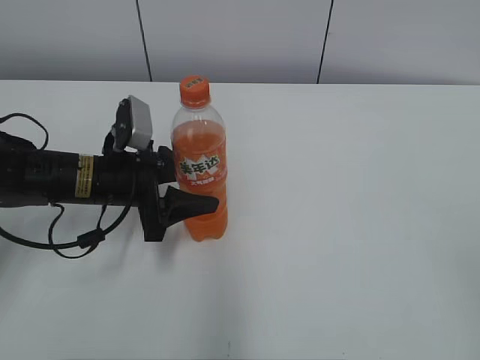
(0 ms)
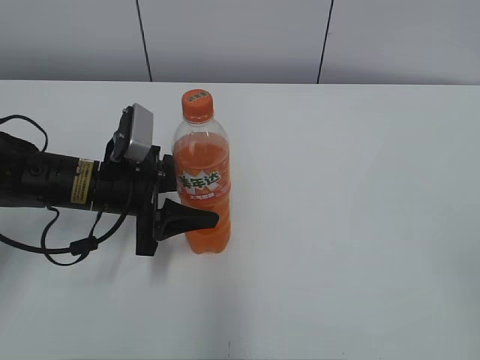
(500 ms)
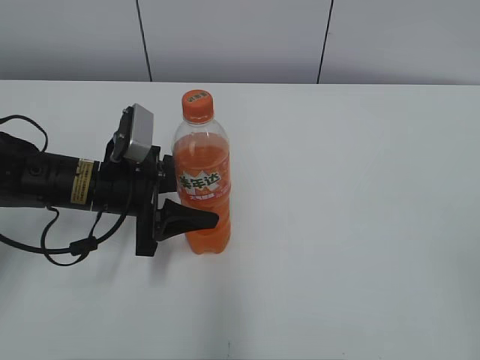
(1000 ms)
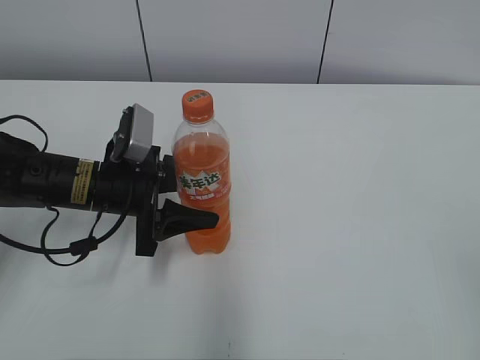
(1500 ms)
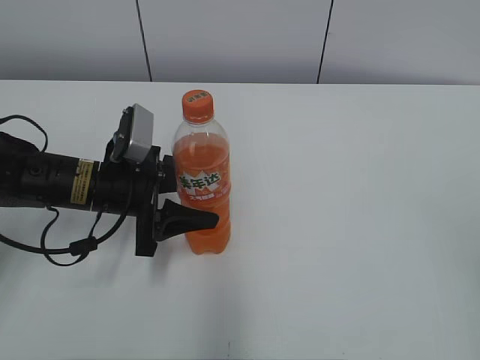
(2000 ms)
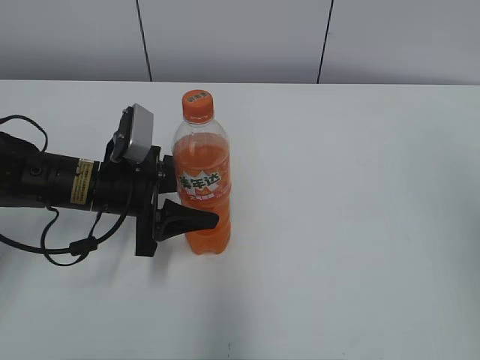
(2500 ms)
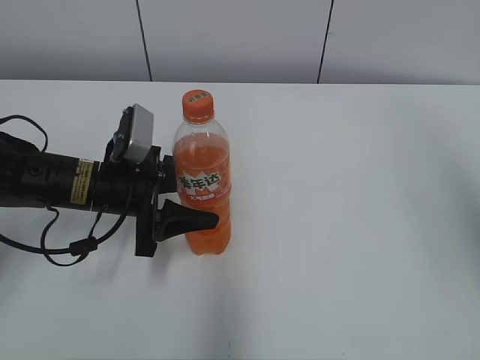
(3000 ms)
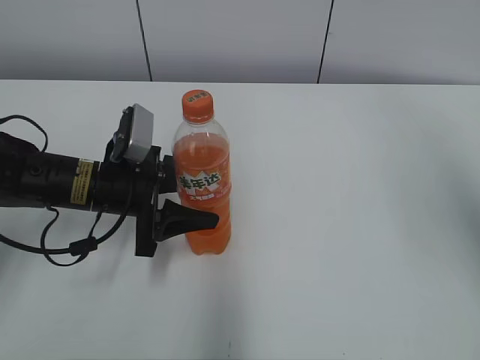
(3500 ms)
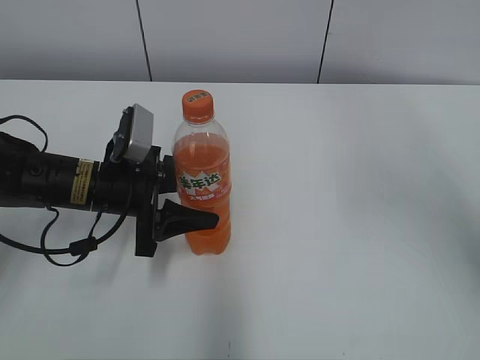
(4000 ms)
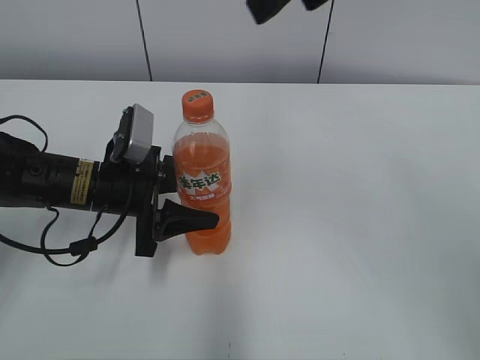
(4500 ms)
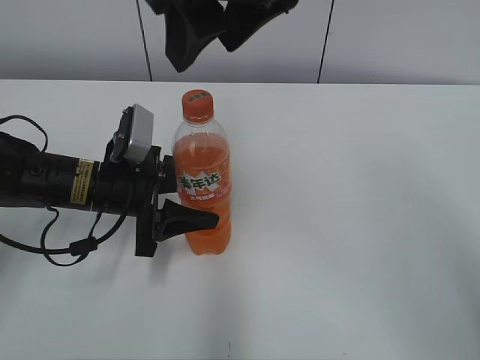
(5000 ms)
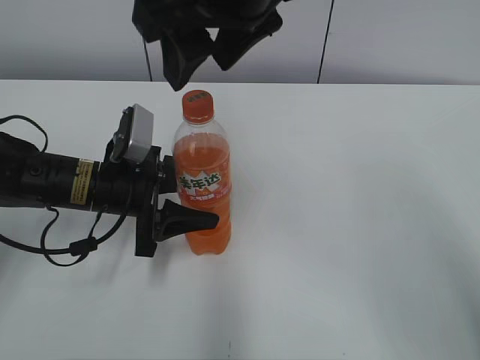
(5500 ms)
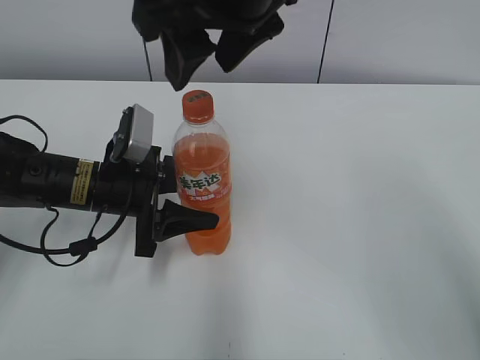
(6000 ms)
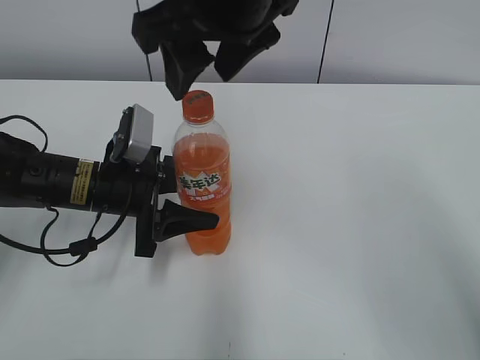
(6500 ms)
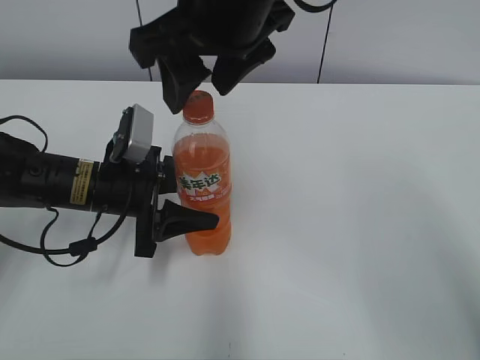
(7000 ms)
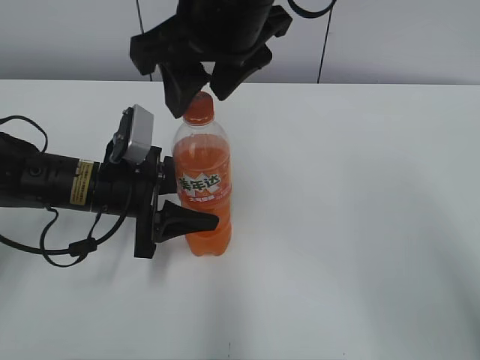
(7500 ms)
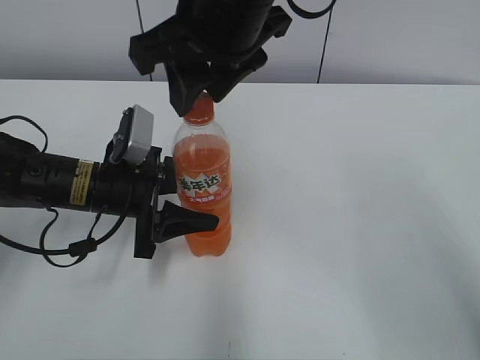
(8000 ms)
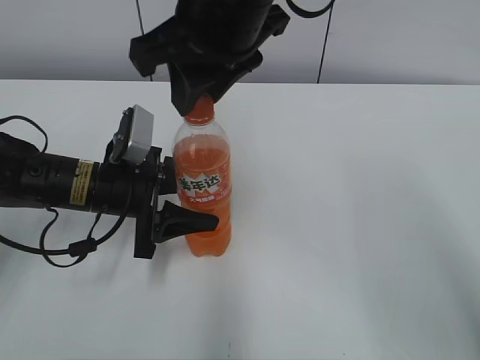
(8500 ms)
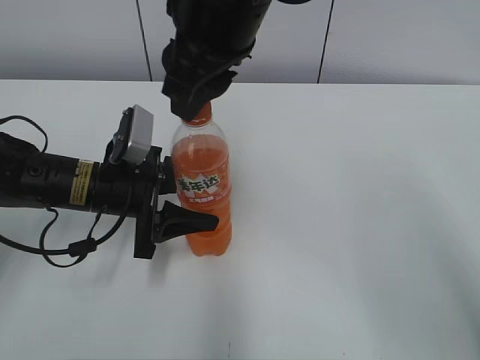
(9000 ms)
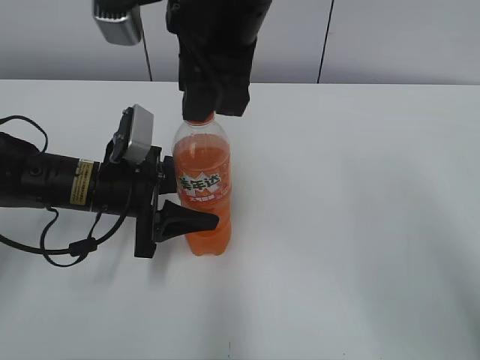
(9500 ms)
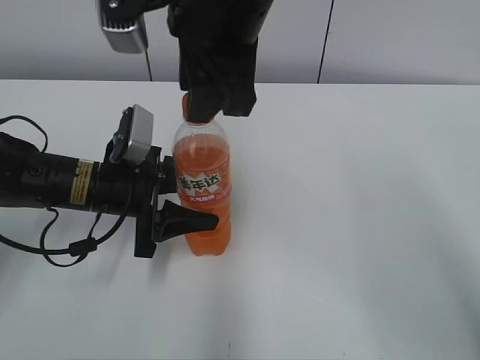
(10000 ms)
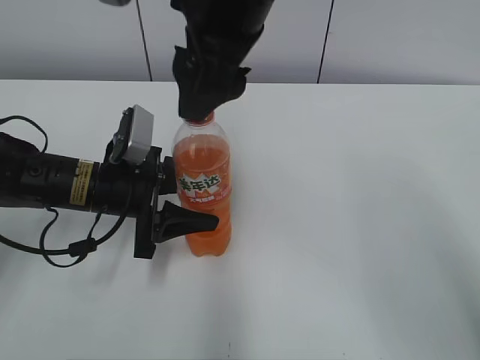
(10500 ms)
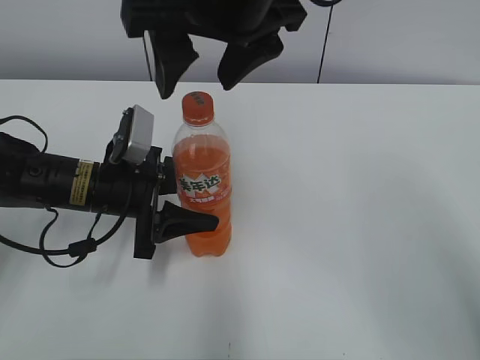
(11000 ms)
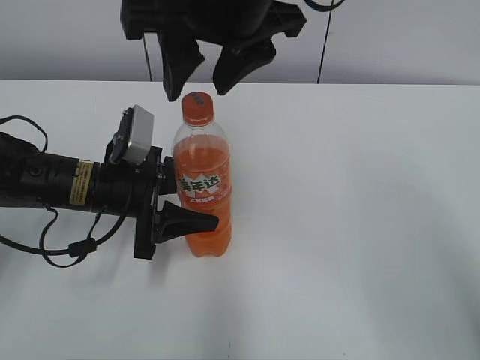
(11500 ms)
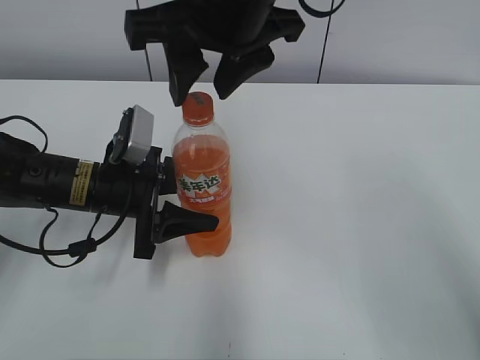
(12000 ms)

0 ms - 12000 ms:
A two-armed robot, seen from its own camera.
Step, 0 ms - 1500 ms: Move the Mirinda from left to right.
0 ms - 2000 ms: The right gripper ends up approximately 5 cm from where it was.
2000 ms - 4000 ms: The right gripper heads forward and upward, covering some 25 cm.
4000 ms - 6000 ms: The right gripper is displaced to the left and downward by about 25 cm.
6000 ms - 8000 ms: The right gripper closes.
10000 ms - 12000 ms: The right gripper opens and closes again.

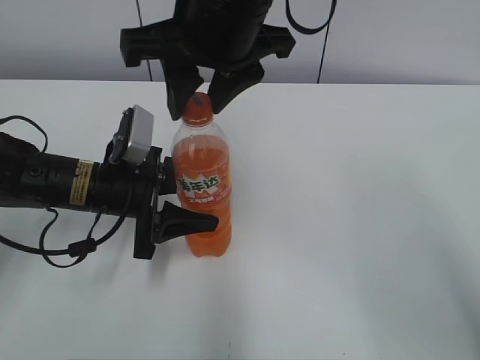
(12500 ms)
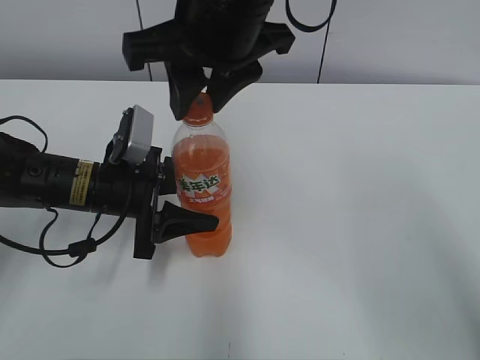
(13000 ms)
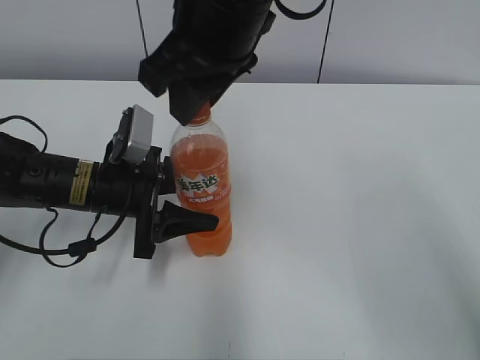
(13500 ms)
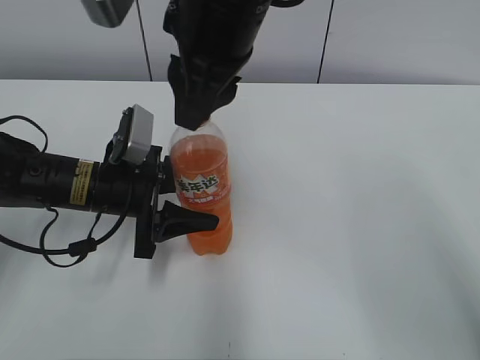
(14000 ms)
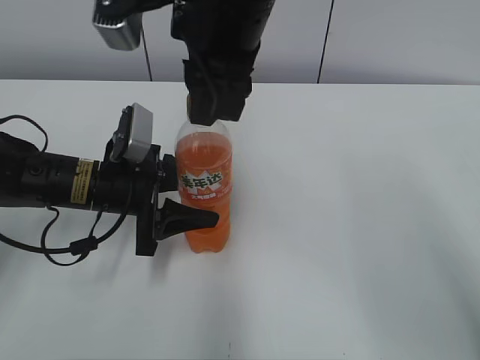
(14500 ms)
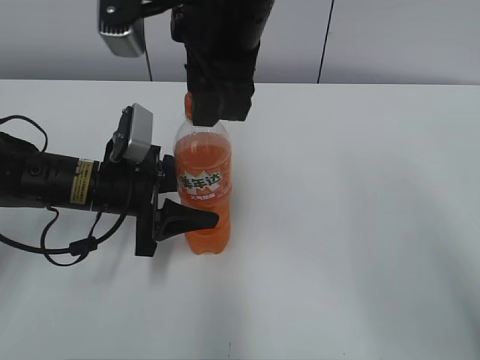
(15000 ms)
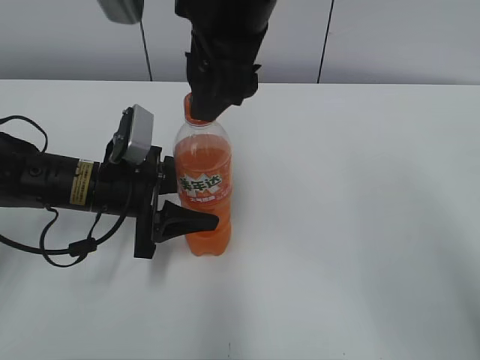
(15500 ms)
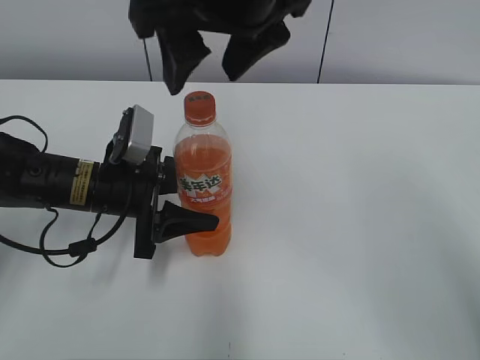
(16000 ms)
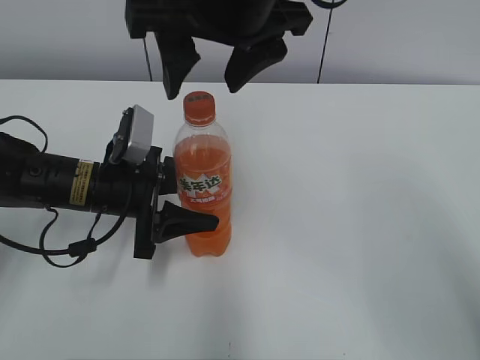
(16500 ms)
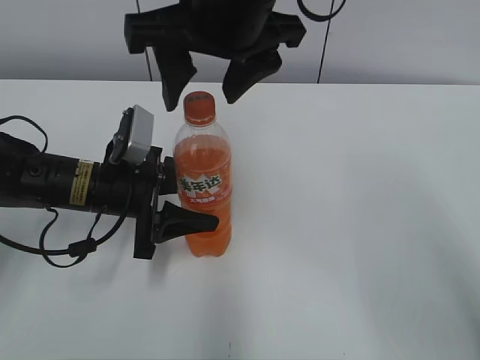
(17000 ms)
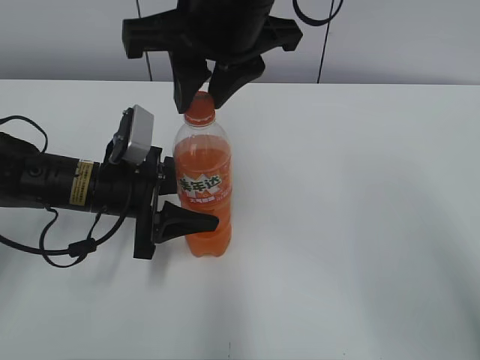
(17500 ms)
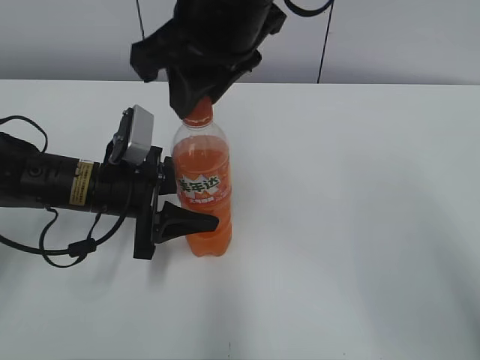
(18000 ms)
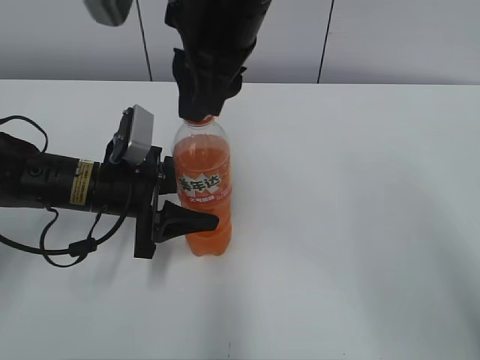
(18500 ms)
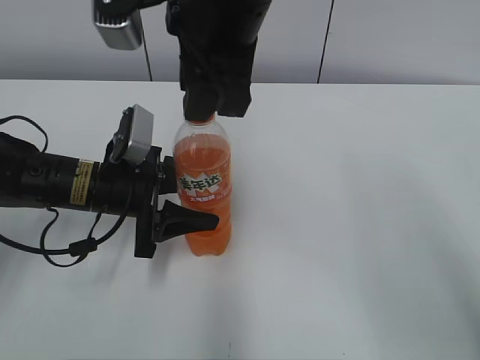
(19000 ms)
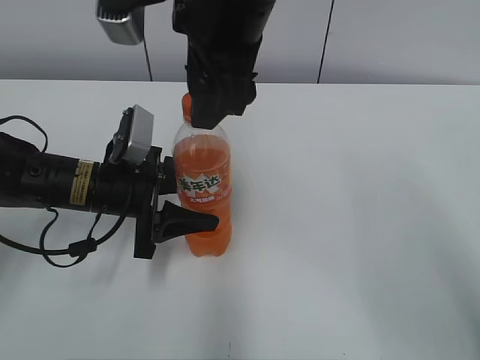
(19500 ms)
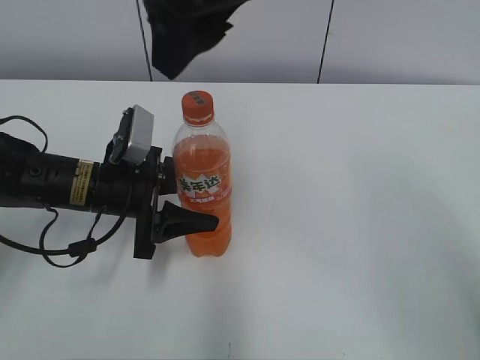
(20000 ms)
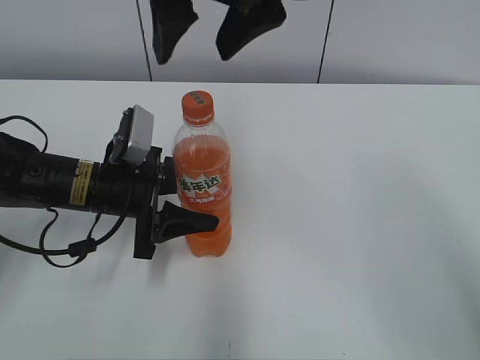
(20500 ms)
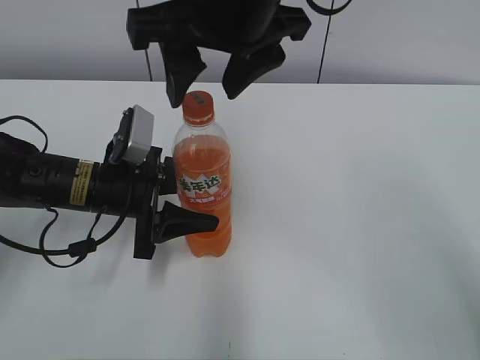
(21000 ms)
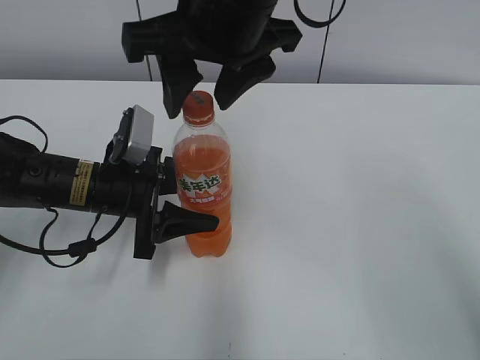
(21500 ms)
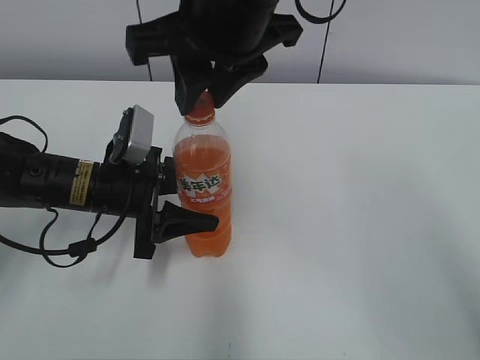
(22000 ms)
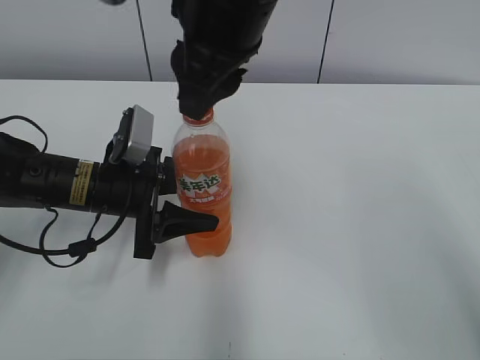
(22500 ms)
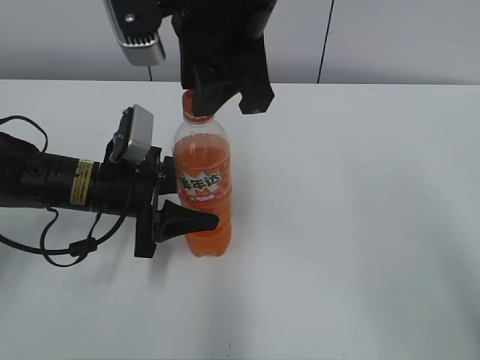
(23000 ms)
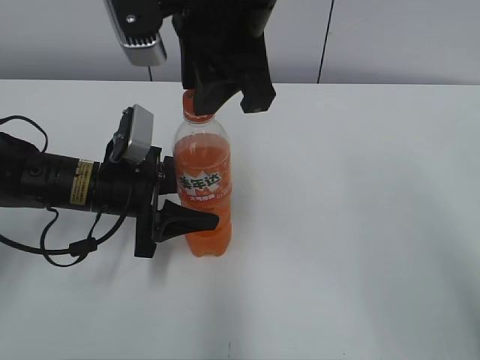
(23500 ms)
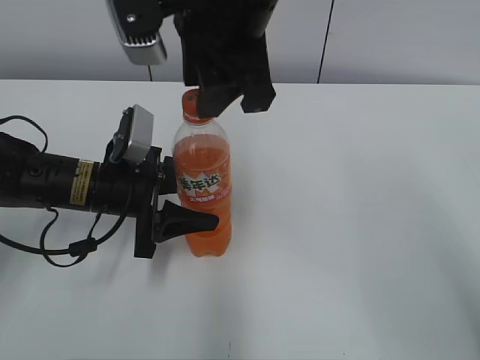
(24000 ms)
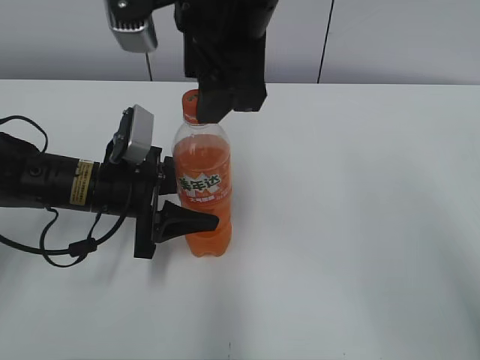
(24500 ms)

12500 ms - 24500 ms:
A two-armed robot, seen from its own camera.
14500 ms - 16500 ms: The right gripper opens its fingers.
16500 ms - 18500 ms: The right gripper closes its fingers.
18500 ms - 20500 ms: The right gripper opens.
20500 ms - 22500 ms: The right gripper closes.
22500 ms - 24500 ms: The right gripper opens.

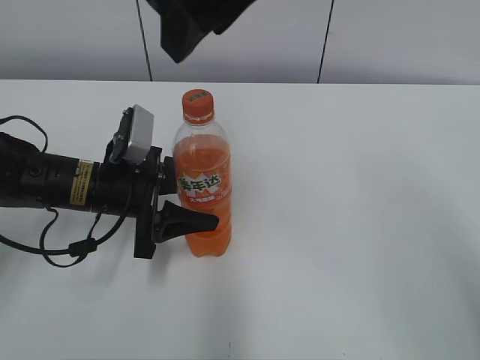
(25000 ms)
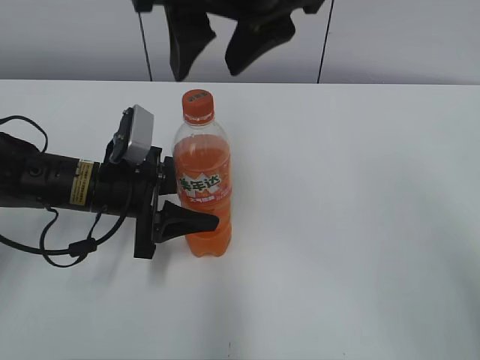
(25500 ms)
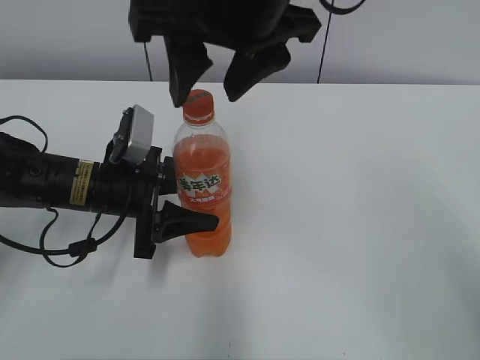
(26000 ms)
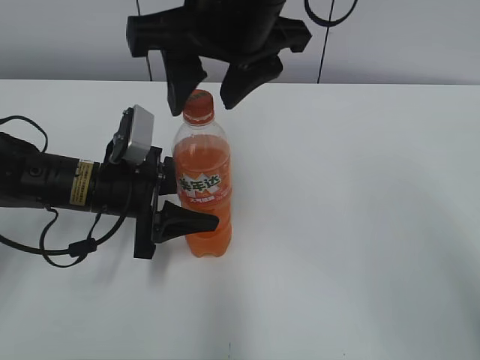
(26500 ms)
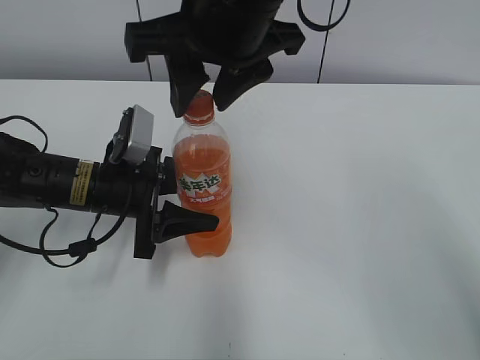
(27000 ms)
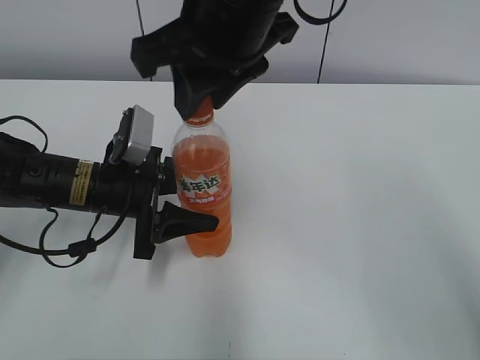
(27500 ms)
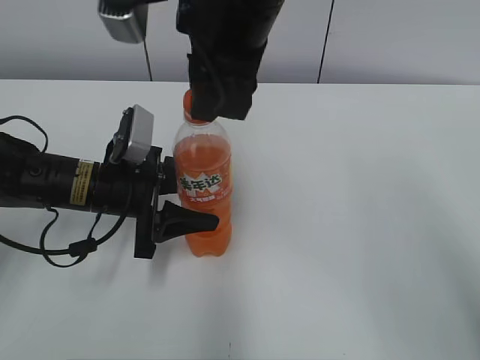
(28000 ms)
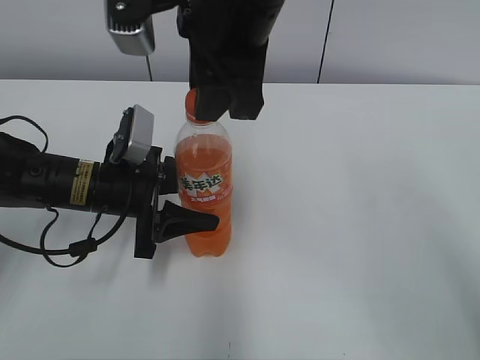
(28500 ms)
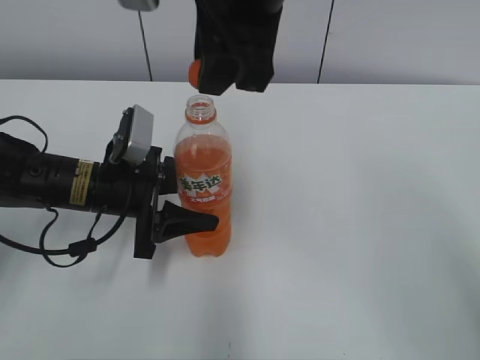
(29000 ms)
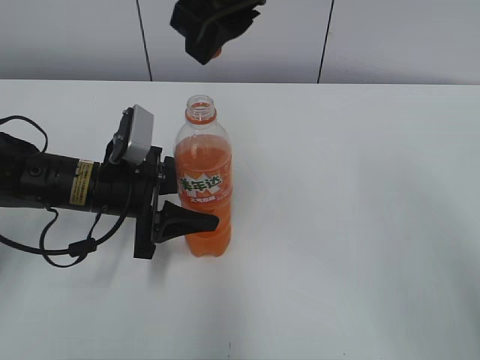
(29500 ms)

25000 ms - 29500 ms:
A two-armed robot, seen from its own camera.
25000 ms - 27000 ms: The right gripper shifts some 5 cm downward.
27000 ms - 29500 ms: The right gripper closes.
